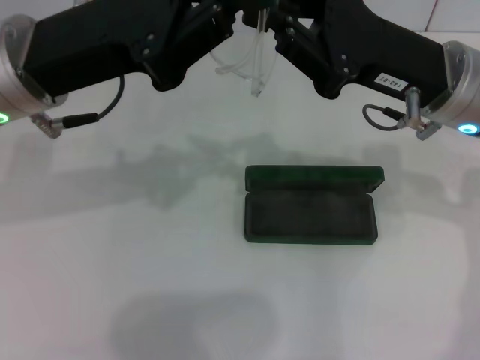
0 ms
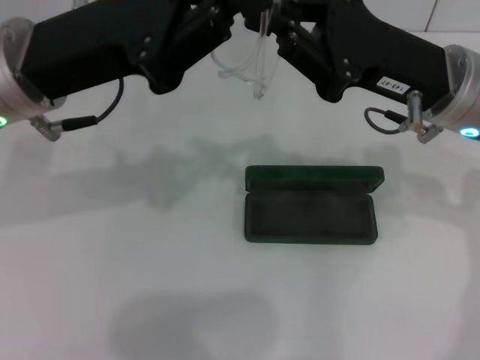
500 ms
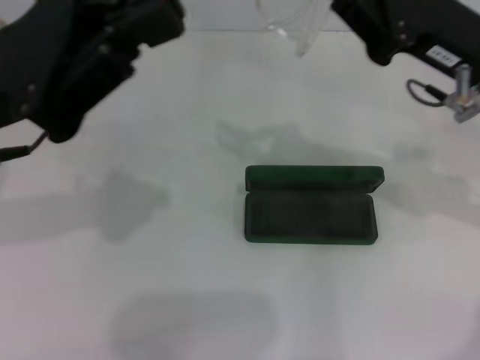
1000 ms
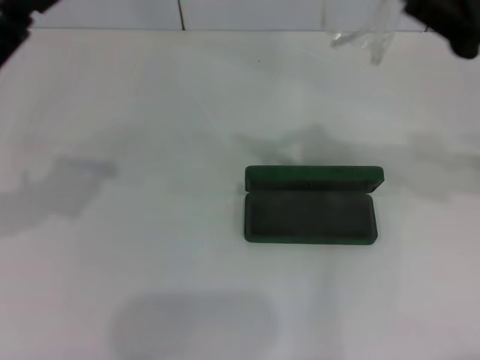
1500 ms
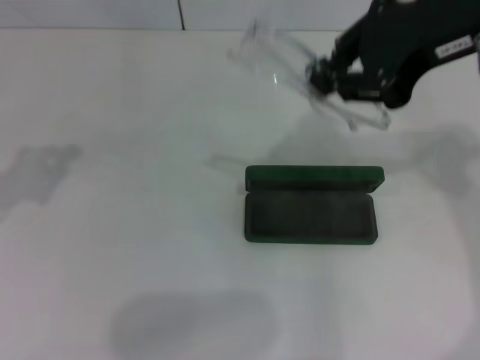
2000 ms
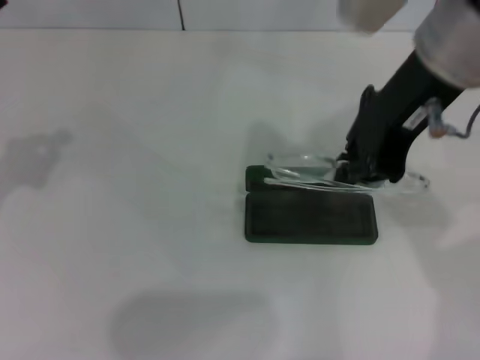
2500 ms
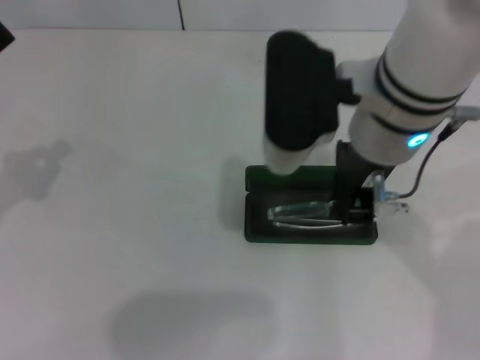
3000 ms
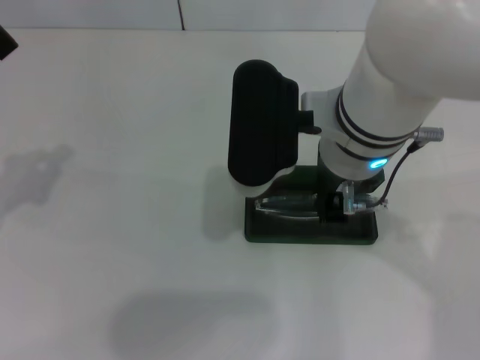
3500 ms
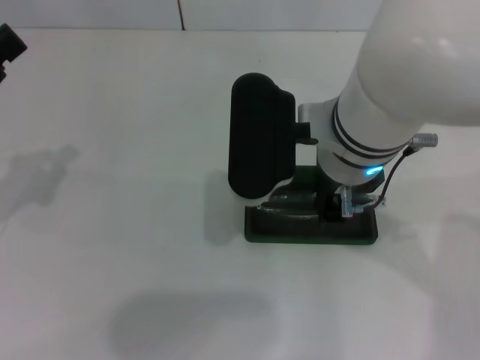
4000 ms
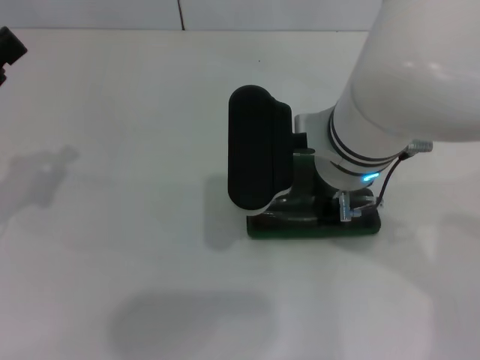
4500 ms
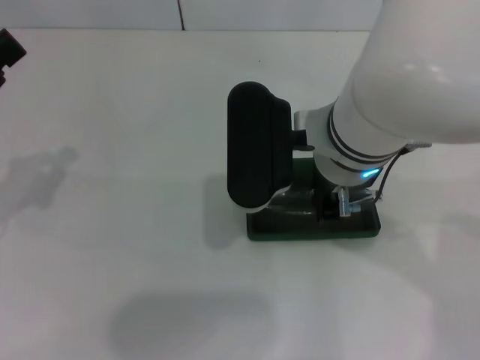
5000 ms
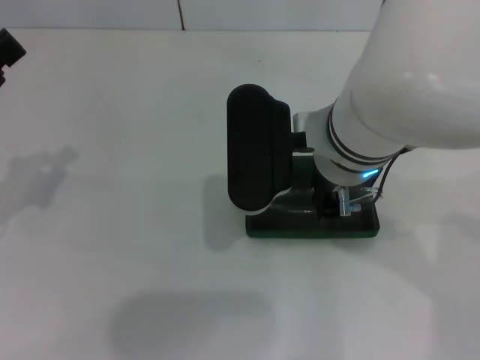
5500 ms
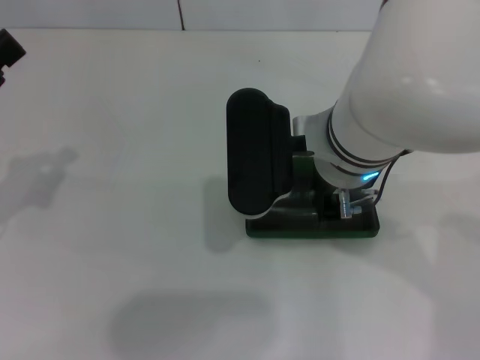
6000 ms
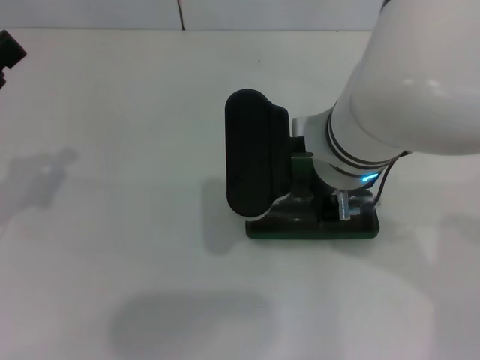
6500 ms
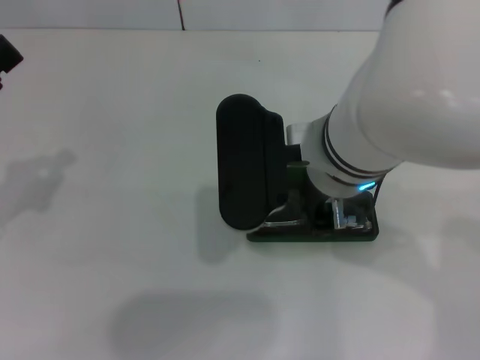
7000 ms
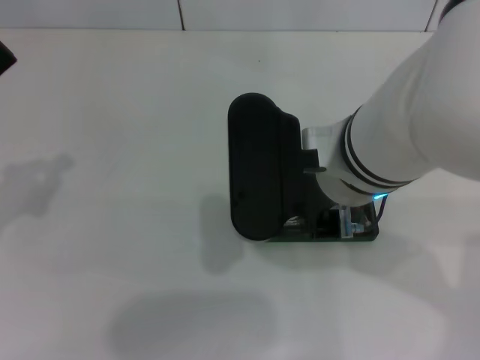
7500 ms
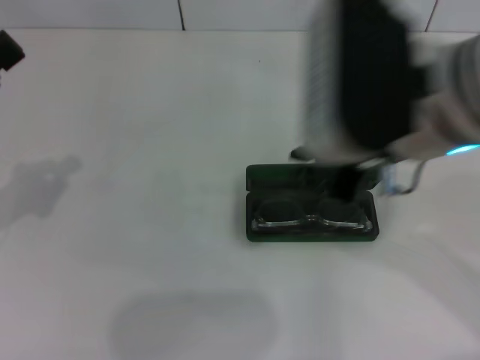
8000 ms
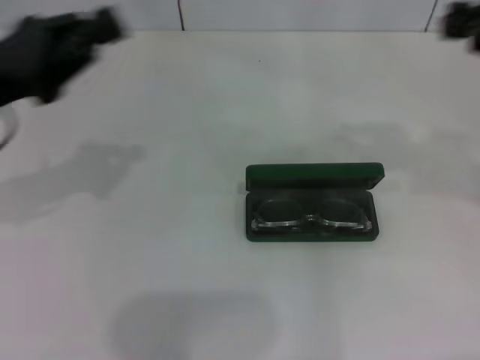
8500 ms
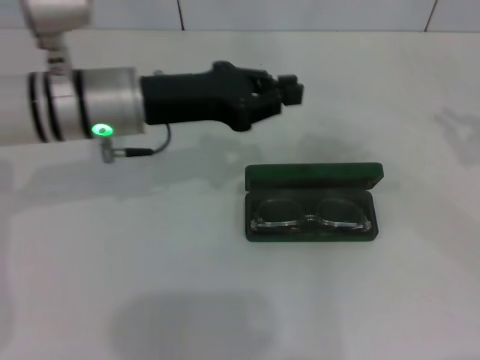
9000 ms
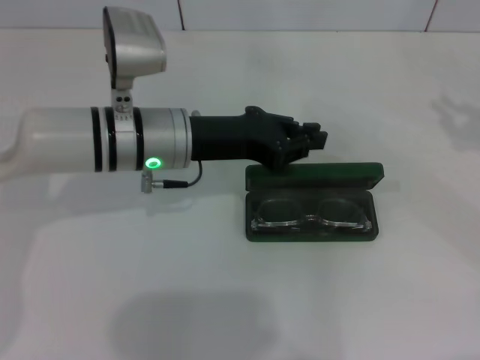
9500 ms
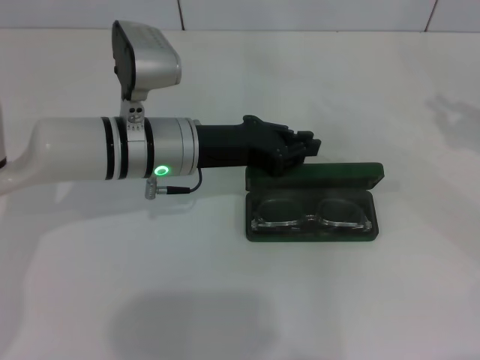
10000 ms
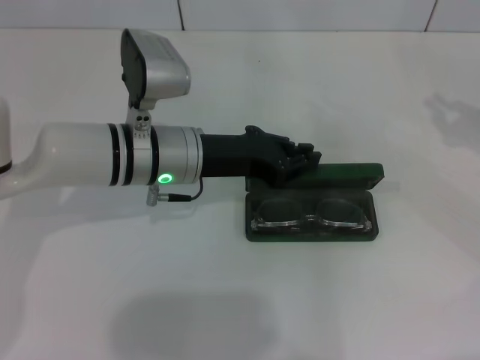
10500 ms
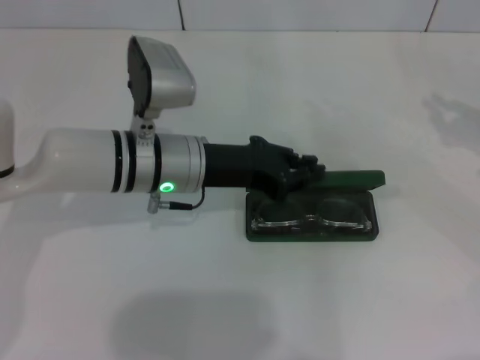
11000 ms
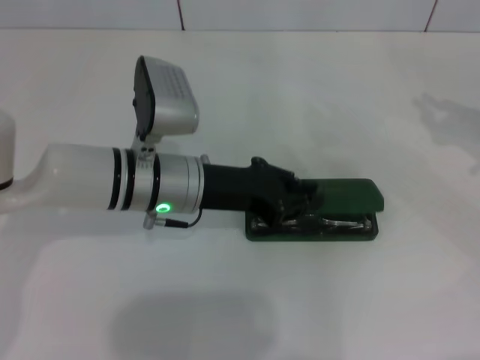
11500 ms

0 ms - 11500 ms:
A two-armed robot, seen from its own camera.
Step, 1000 ms - 6500 ms: Put the glasses into the case with your right hand.
Step, 7500 ms - 11500 ms: Close the glasses case with your left hand.
0 ms - 2000 ms: The left gripper moves to the left, some 15 cm. Meanwhile the right gripper moves upward, about 15 cm.
2000 ms - 4000 ms: The right gripper shifts some 20 cm to the left and downward.
4000 ms - 6000 ms: Both grippers stay about where they are.
6000 ms - 7500 ms: The grippers make only small movements.
7500 ms - 9500 ms: The right gripper heads to the right, covering roughly 35 cm; the left gripper is displaced to the right and forward by about 25 cm.
9500 ms - 11500 ms: The grippers make only small movements.

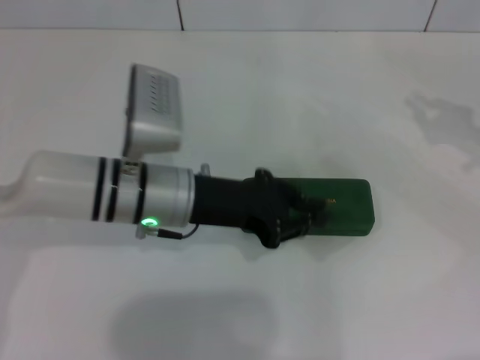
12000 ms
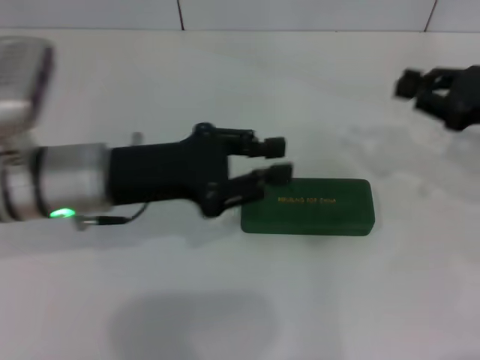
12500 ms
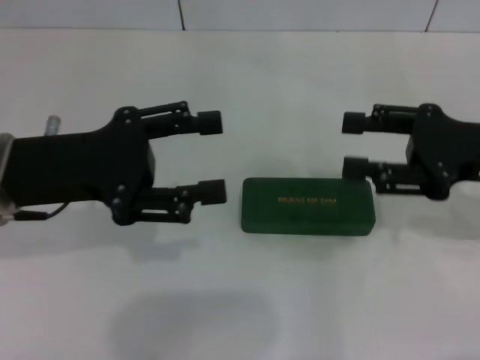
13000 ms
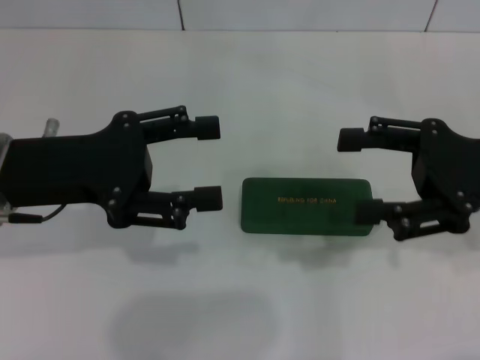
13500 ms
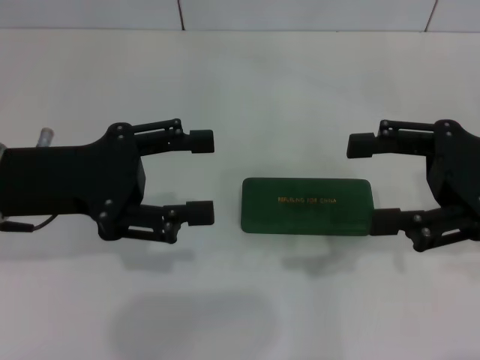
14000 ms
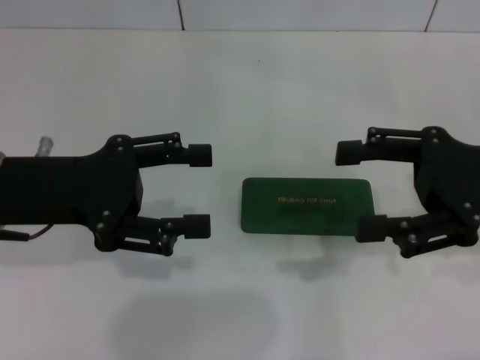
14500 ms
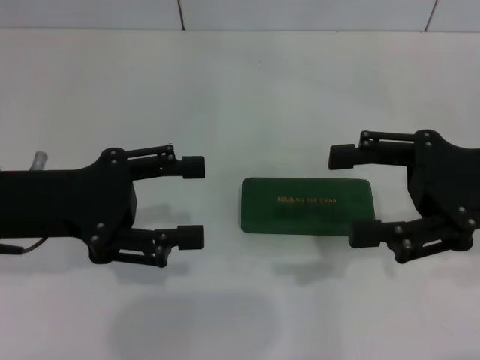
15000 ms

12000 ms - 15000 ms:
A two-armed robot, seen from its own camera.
12000 ms - 13500 ms: The right gripper goes some 10 cm to the left, and opens, while the left gripper travels to the left and upward by about 15 cm, and opens up.
13500 ms - 15000 ms: The grippers stay close to where they were, moving slightly.

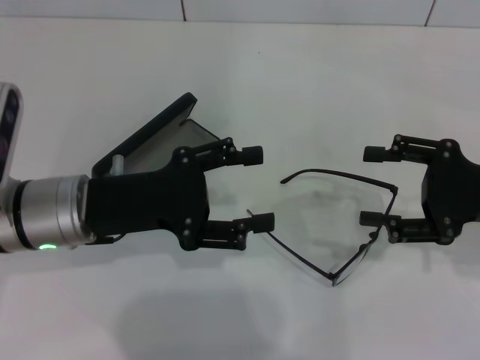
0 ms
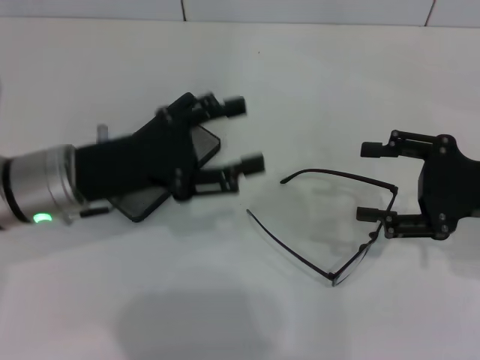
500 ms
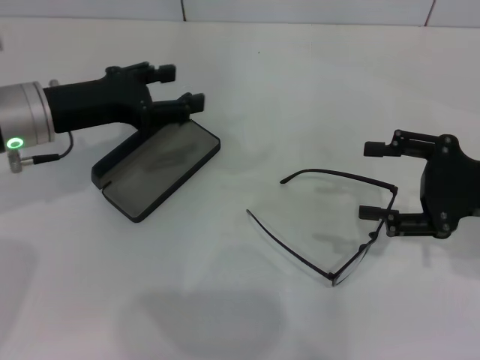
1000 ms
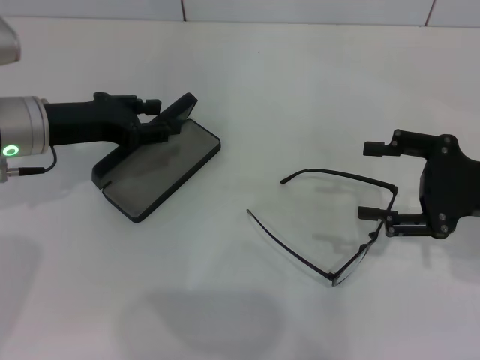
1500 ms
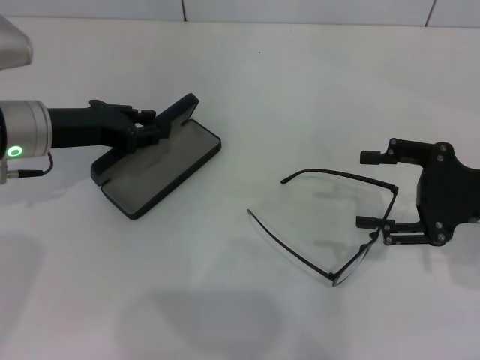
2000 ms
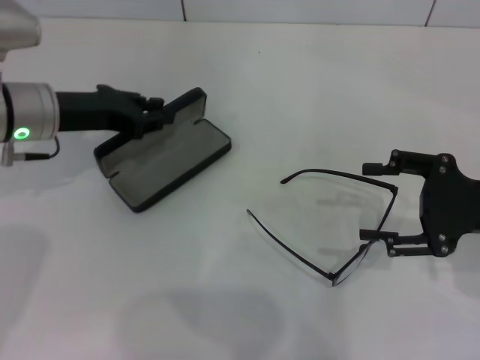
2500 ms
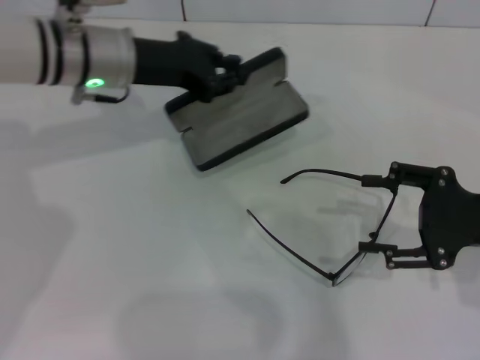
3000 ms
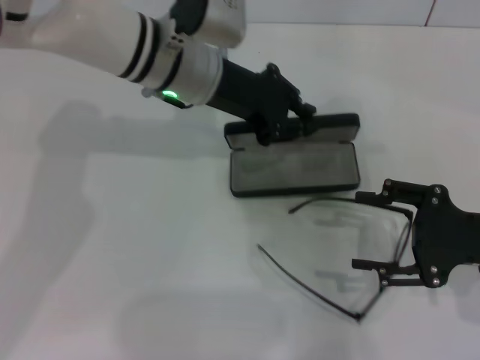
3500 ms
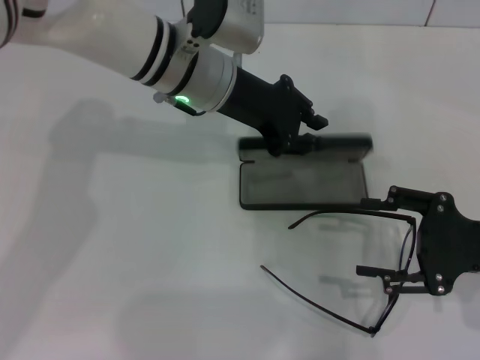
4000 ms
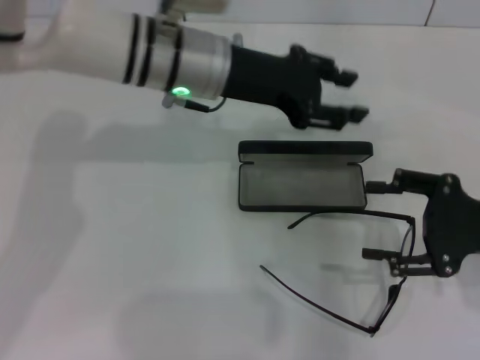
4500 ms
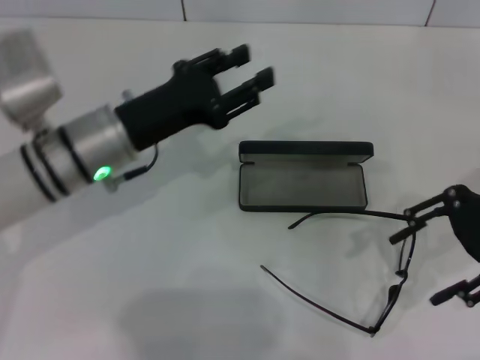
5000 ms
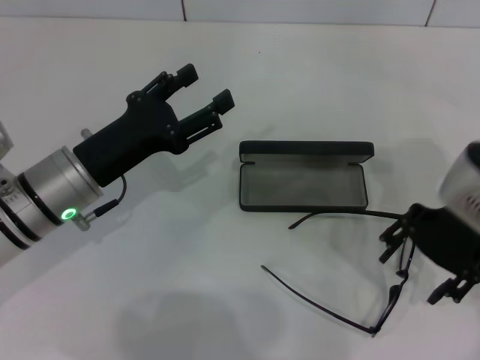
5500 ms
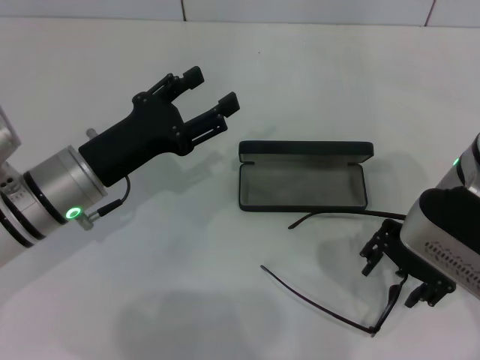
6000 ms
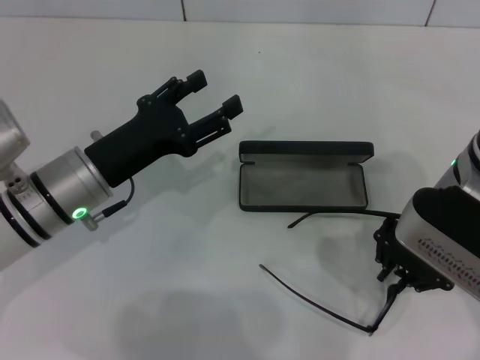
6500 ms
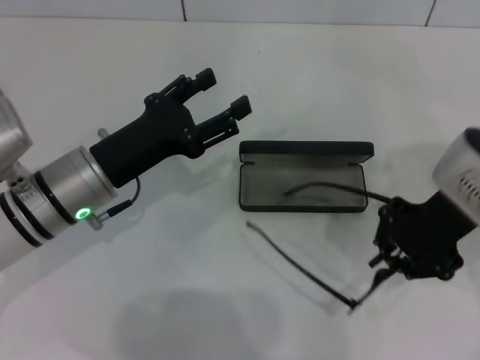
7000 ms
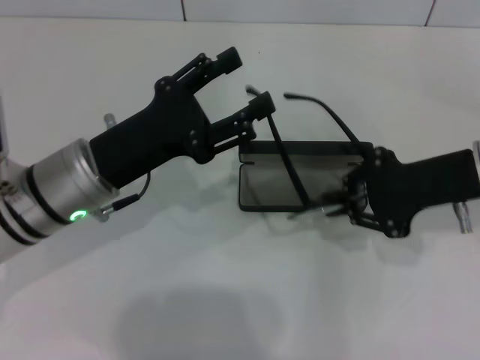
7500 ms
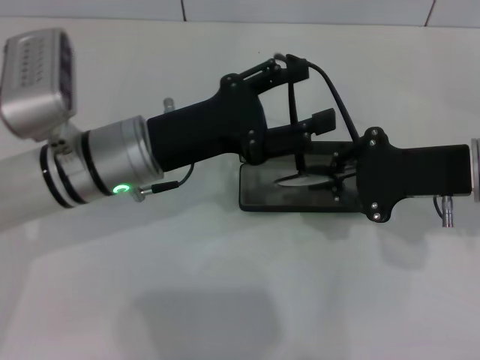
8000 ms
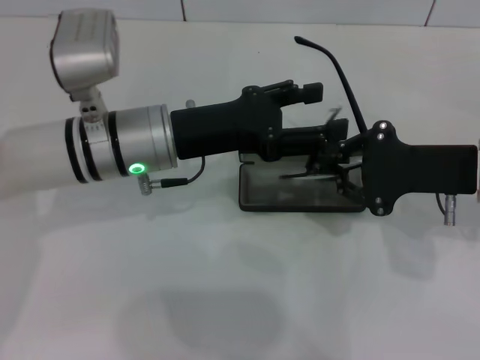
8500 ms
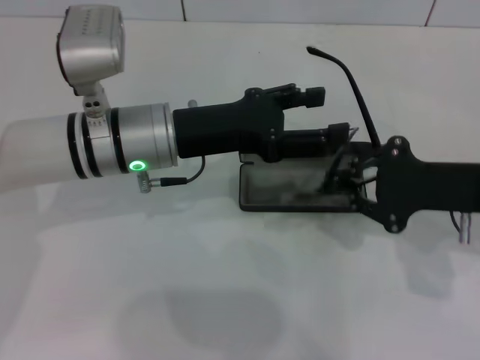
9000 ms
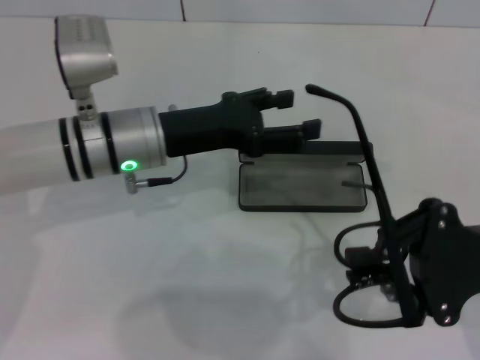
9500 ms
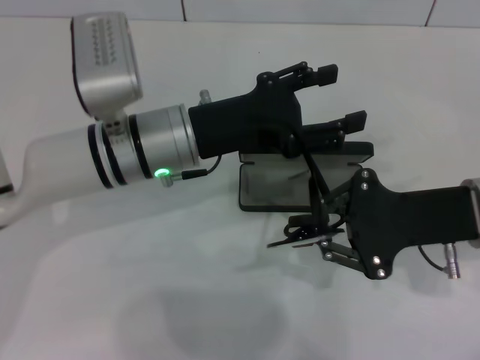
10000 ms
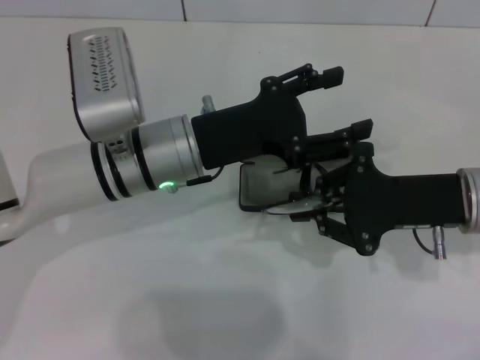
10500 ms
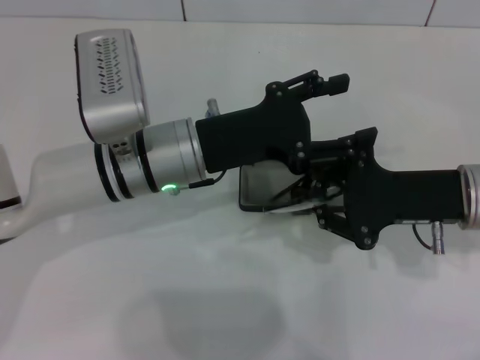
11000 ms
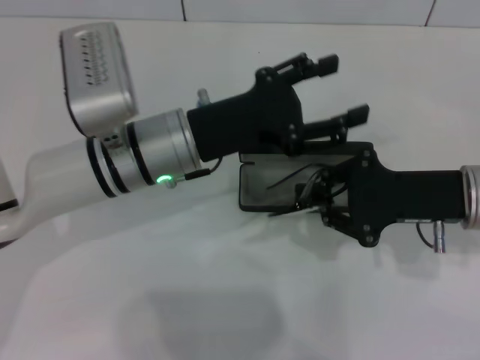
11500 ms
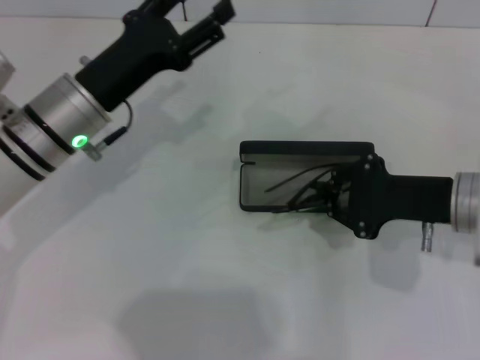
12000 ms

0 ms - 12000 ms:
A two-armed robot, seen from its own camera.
Step, 0 ms - 2000 ms: Grab the glasses case with your left hand.
Step, 2500 ms - 4000 ms: Place the glasses case in the center of the table with your left hand.
Step, 4500 ms - 6500 ms: Grab the eyeglass frame with your right hand.
Step, 7000 ms - 11000 ms: Fold the frame with your left hand.
0 ms - 2000 ms: The left gripper is displaced forward and to the left by about 10 cm, and closes up.
2000 ms - 4000 ms: The left gripper heads to the right, covering some 20 cm, and closes.
4000 ms - 6000 ms: The left gripper travels to the left, backward and downward by approximately 20 cm, and opens. Meanwhile the right gripper heads to the left and upward, covering about 15 cm.
6000 ms - 8000 ms: The grippers both shift to the right by approximately 5 cm. The right gripper closes.
10000 ms - 12000 ms: The left gripper shifts approximately 5 cm to the left.
